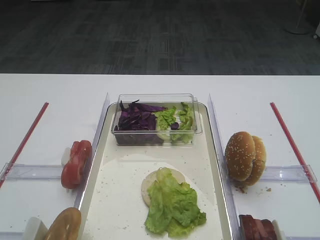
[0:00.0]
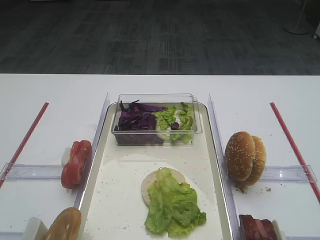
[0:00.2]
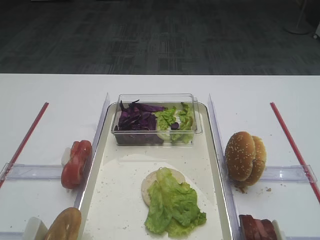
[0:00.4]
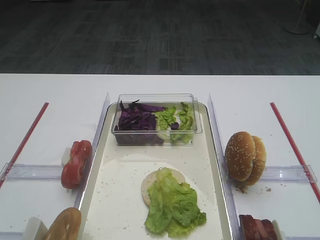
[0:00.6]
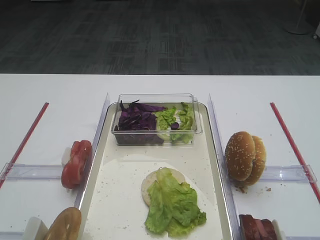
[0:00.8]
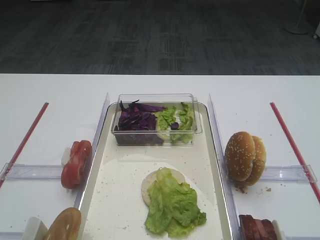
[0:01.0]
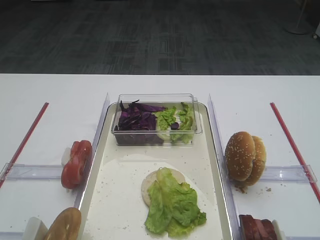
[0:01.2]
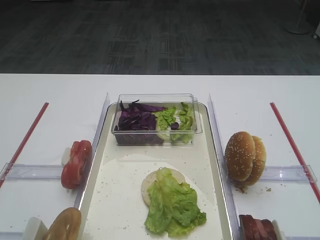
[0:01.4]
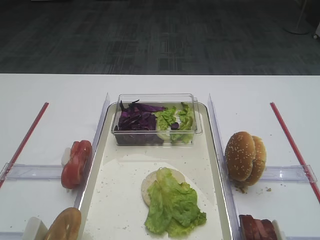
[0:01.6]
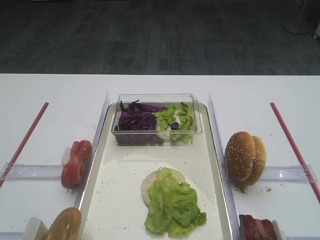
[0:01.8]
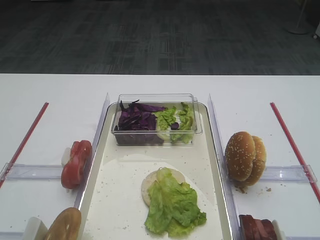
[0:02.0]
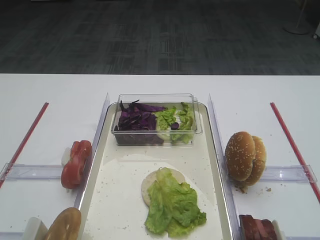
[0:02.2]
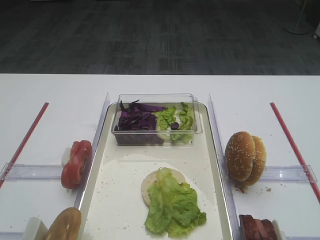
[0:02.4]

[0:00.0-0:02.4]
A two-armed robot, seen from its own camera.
0:01.2 to 0:02.4: Both grippers stay put.
